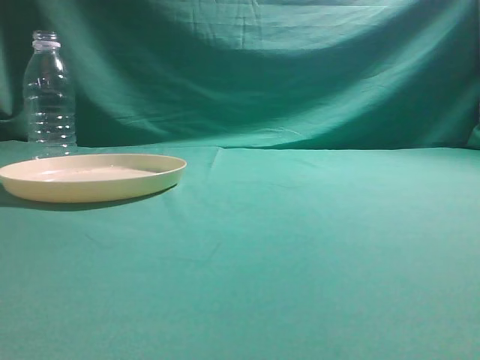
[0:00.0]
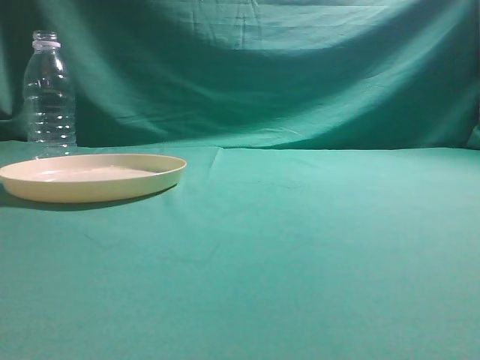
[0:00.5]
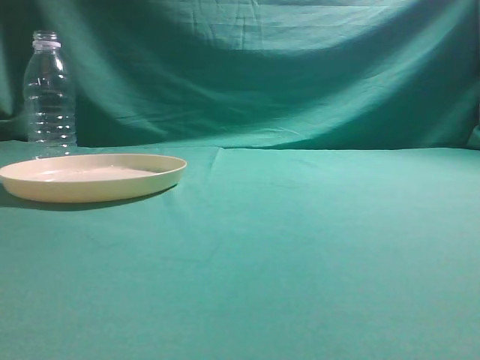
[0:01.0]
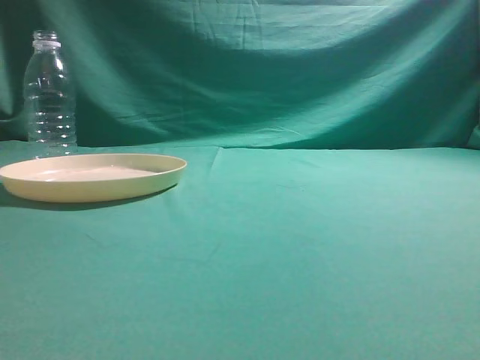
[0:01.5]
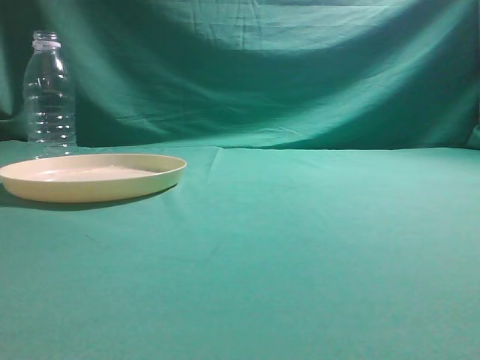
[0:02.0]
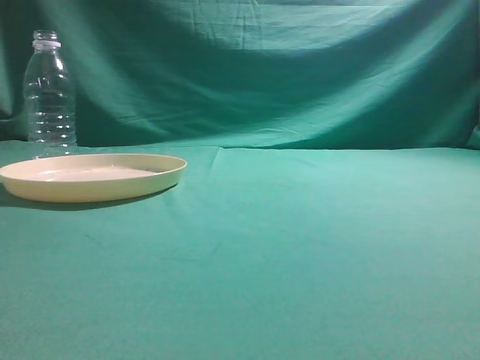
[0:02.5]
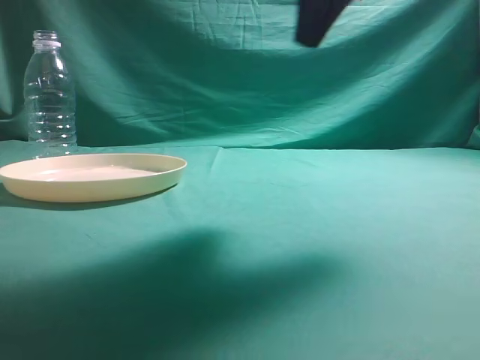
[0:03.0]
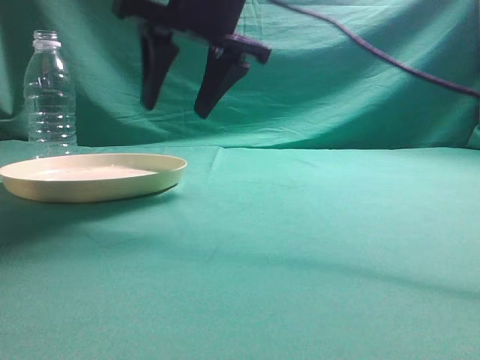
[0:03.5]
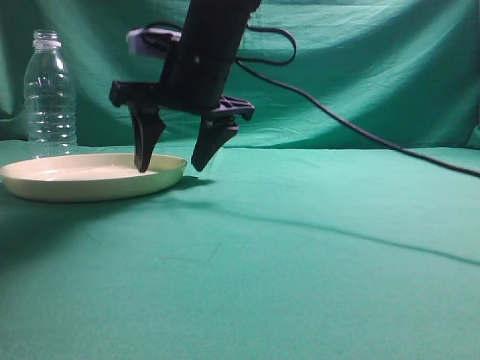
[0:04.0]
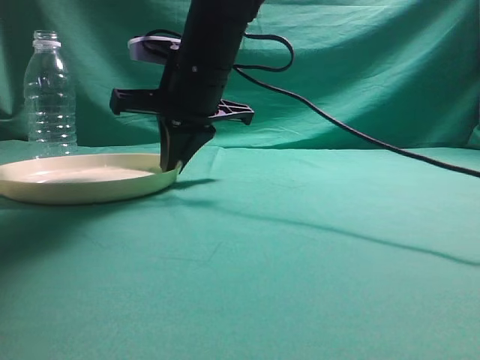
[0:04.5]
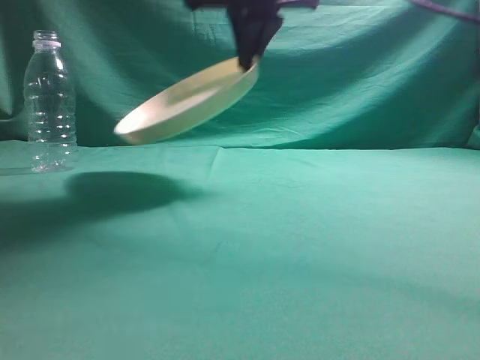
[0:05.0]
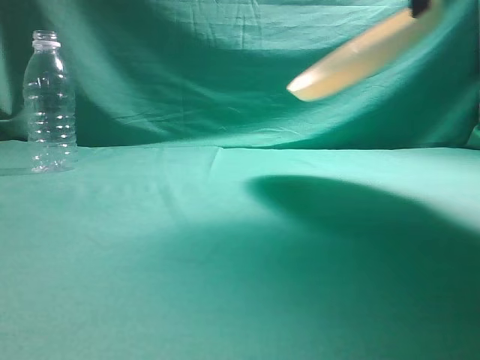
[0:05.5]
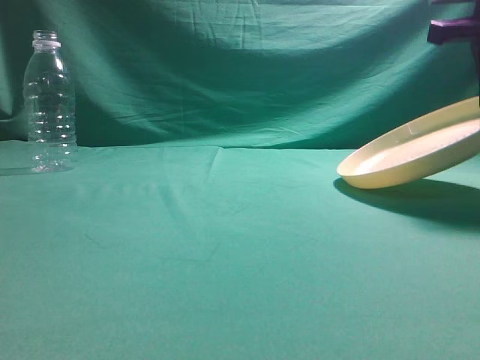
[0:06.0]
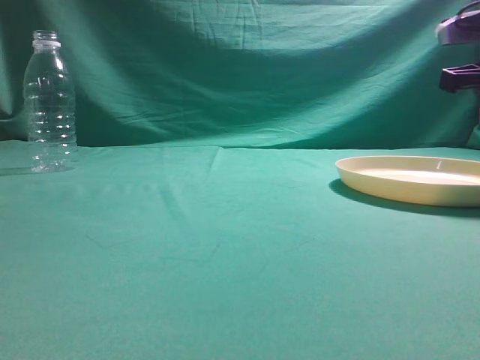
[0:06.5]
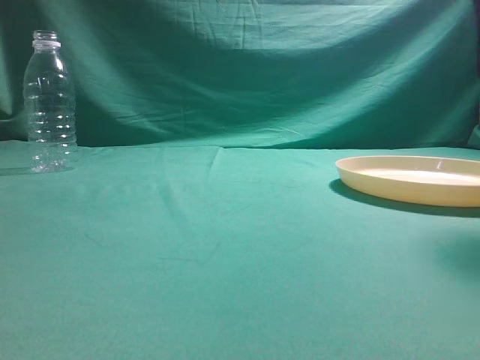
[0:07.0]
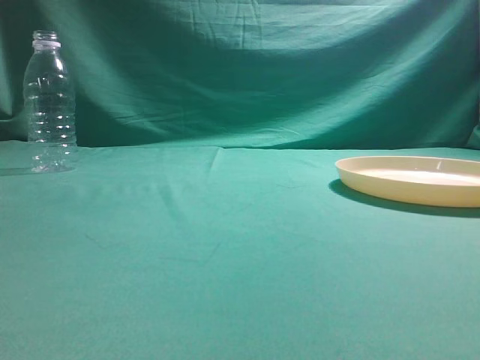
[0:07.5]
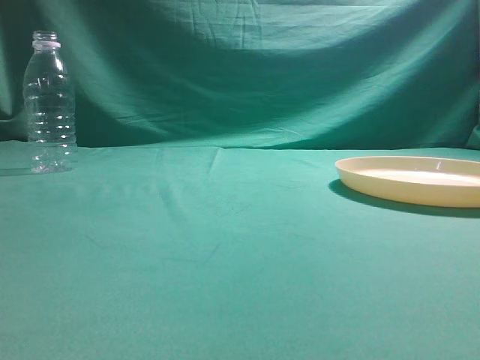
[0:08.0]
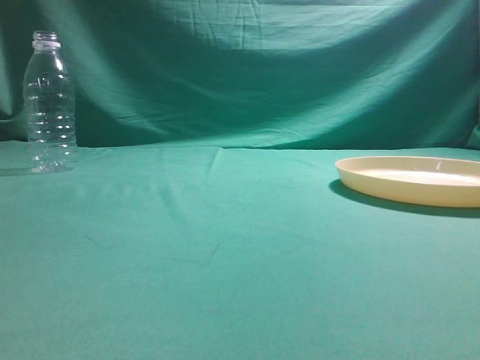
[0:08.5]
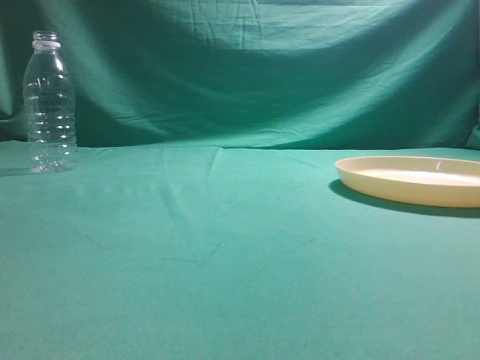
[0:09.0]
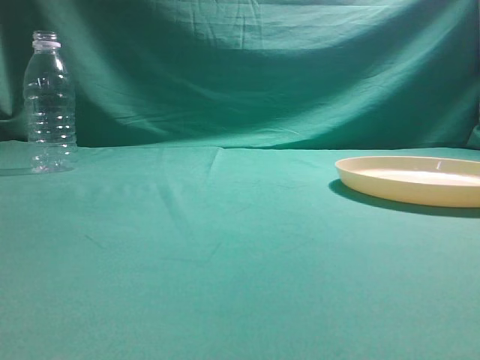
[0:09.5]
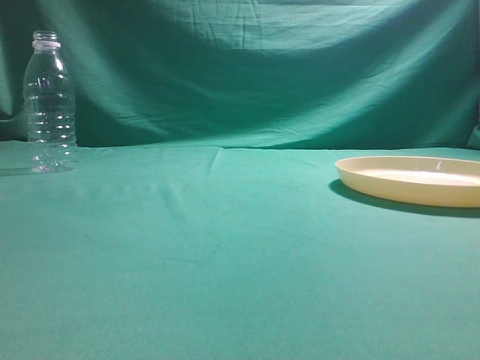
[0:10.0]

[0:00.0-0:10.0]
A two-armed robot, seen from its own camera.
Step, 0:00.0 to 0:05.0: Pick the container that can hold fruits.
Step, 0:05.5 to 0:07.0: Move the picked object to the right side of the table.
0:02.0 to 0:04.0: The right gripper travels to the left and forward by roughly 40 cm, and opens its fingers.
0:04.0 to 0:06.0: The right gripper is displaced to the right by about 30 cm, and closes.
0:06.0 to 0:08.0: The right gripper is displaced backward and upward by approximately 40 cm, and opens, then closes again.

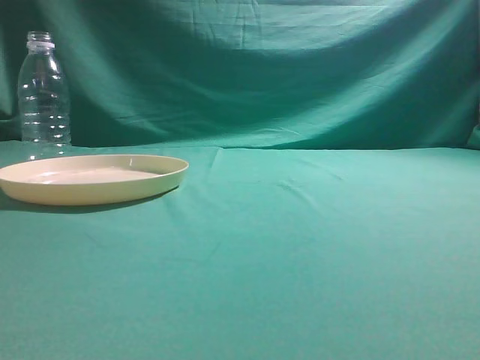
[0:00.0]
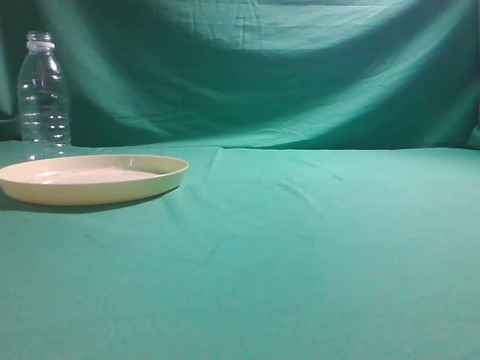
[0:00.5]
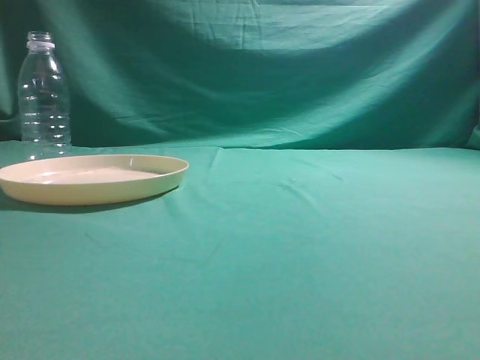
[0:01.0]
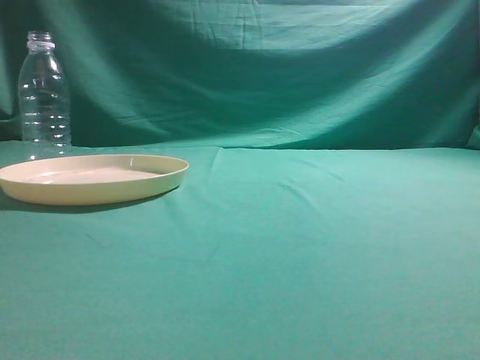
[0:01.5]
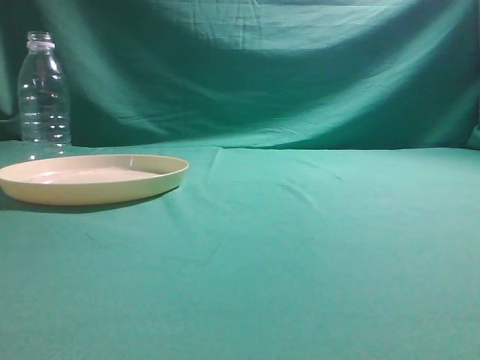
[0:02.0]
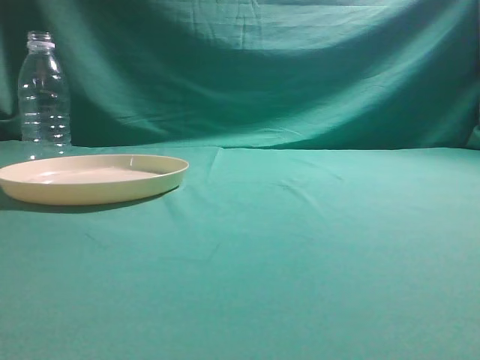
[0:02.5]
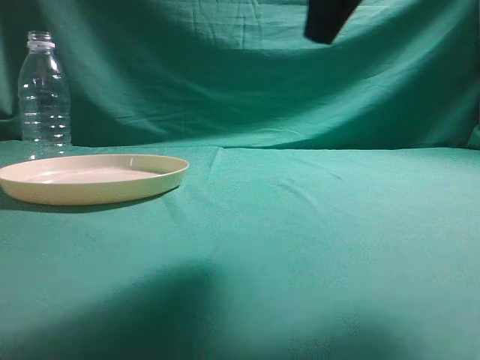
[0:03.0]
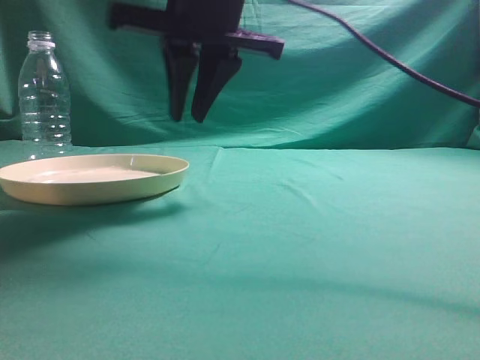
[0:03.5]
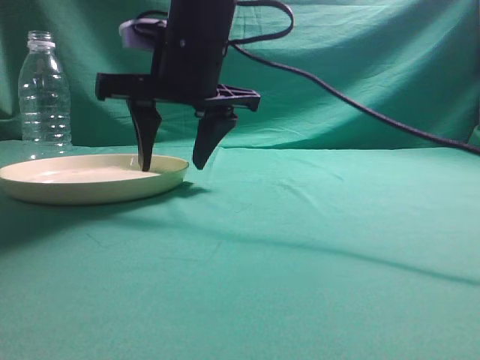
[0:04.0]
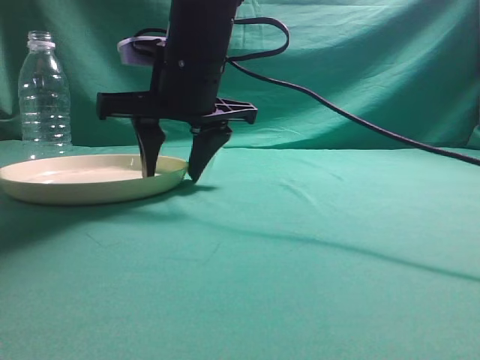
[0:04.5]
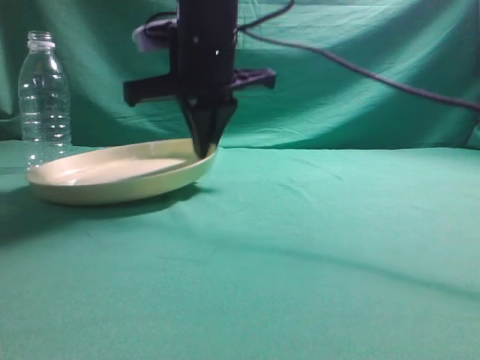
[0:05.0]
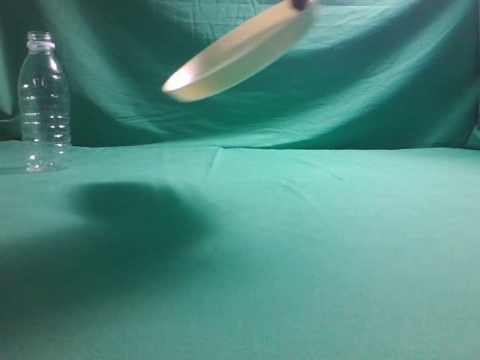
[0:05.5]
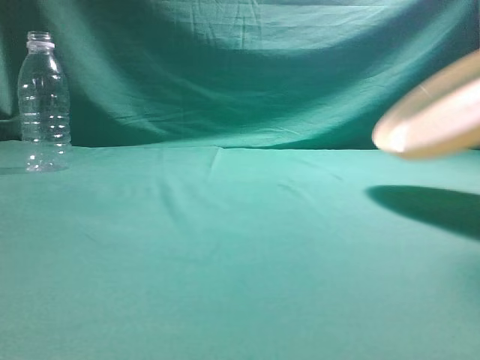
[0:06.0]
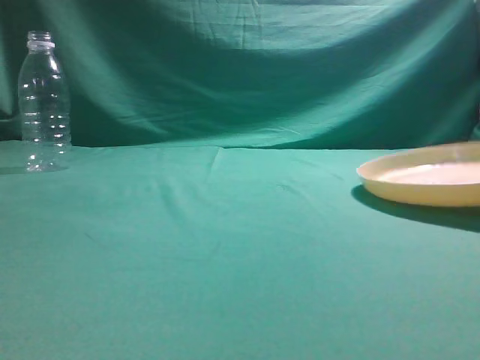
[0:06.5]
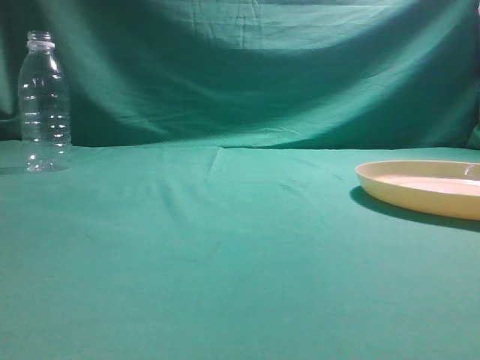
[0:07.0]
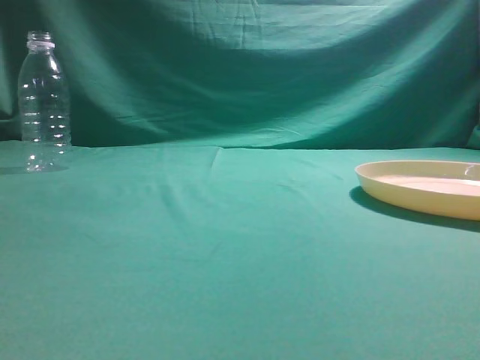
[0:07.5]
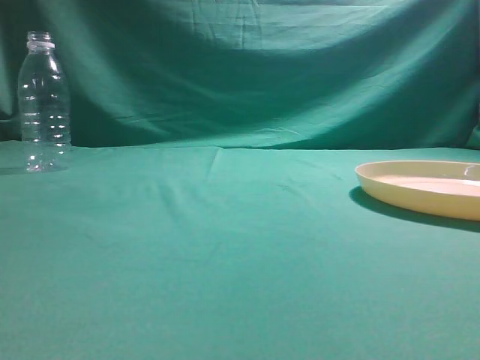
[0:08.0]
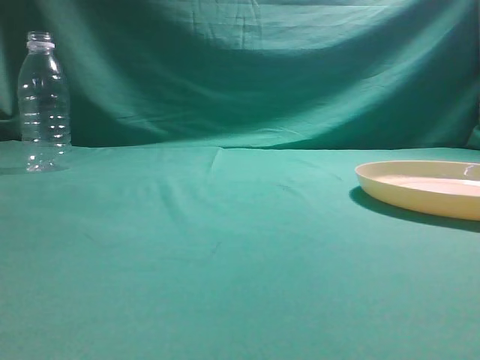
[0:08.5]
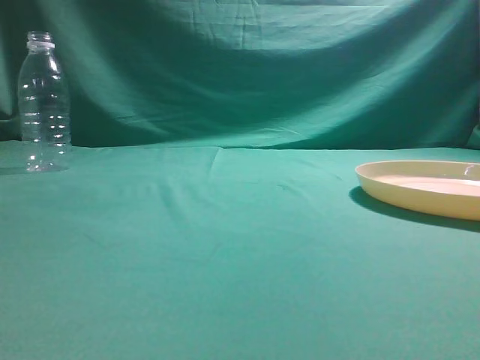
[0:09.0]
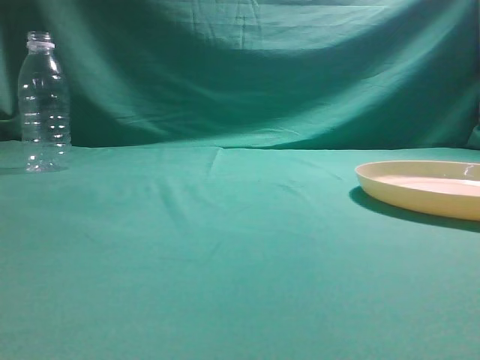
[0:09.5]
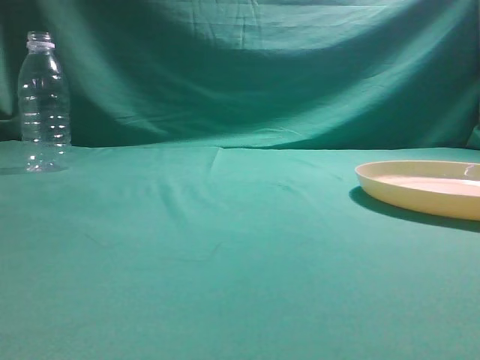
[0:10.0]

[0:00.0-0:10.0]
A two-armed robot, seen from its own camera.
Step, 0:00.0 to 0:05.0: Pick the container that can hold fruits.
Step, 0:05.5 to 0:07.5: Move the picked object to the right side of the table.
0:02.0 to 0:04.0: The right gripper moves to the left and forward, roughly 40 cm, and opens.
0:04.0 to 0:06.0: The right gripper goes approximately 30 cm to the right and upward, and closes its fingers.
0:06.0 to 0:08.0: The right gripper travels backward by roughly 20 cm, and opens, then closes again.
